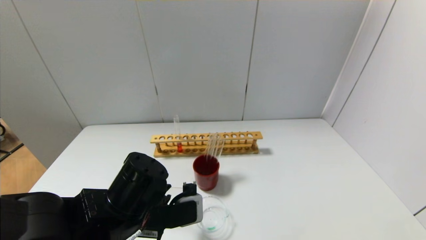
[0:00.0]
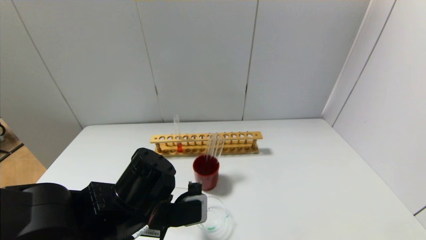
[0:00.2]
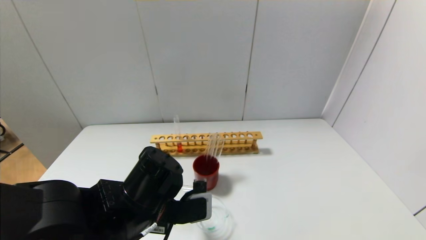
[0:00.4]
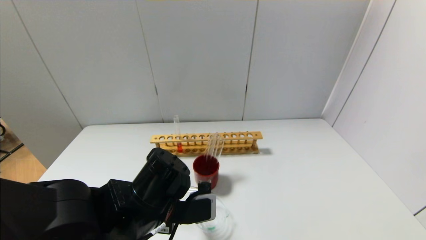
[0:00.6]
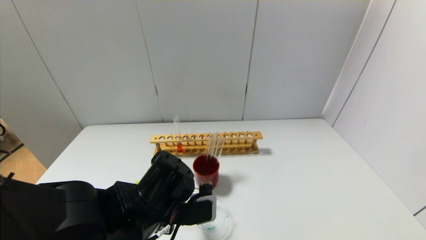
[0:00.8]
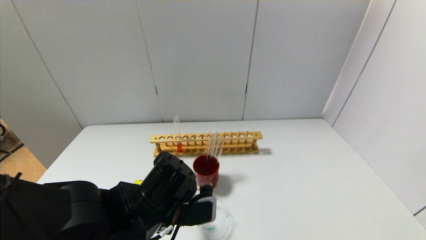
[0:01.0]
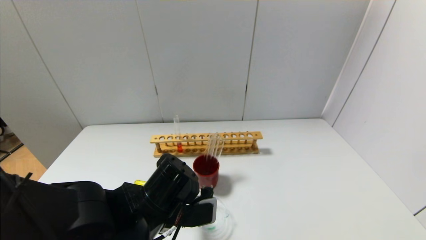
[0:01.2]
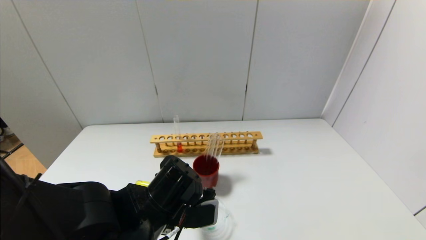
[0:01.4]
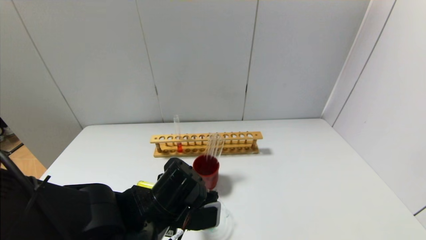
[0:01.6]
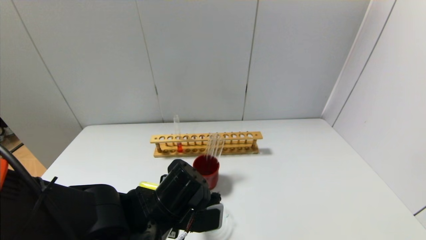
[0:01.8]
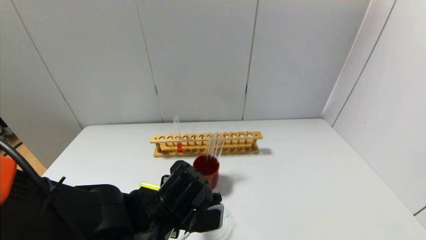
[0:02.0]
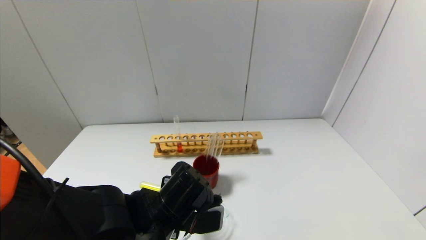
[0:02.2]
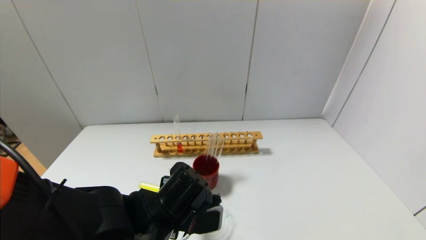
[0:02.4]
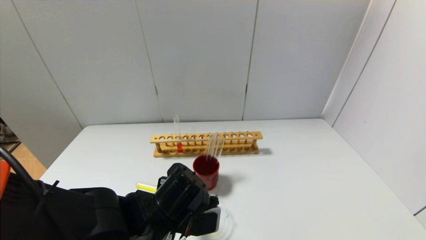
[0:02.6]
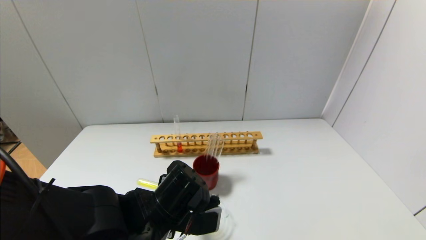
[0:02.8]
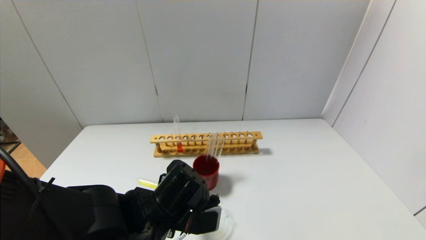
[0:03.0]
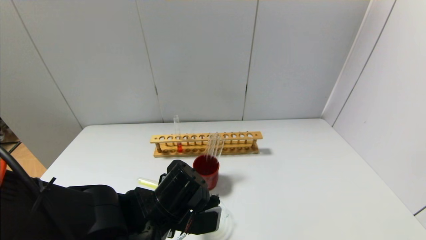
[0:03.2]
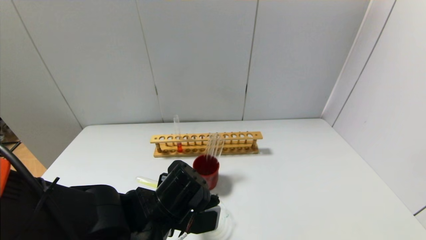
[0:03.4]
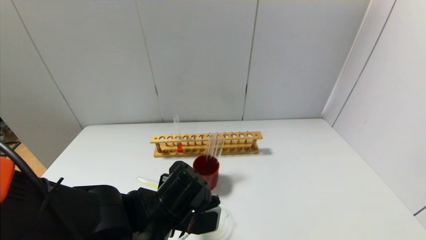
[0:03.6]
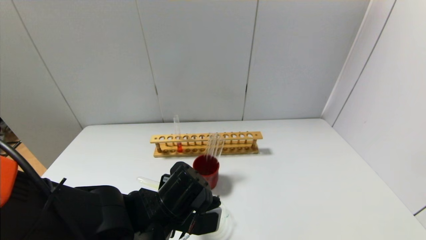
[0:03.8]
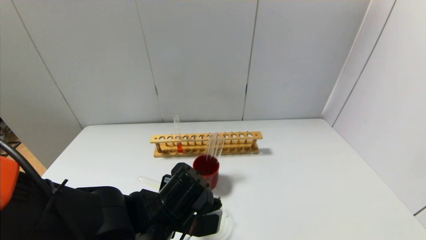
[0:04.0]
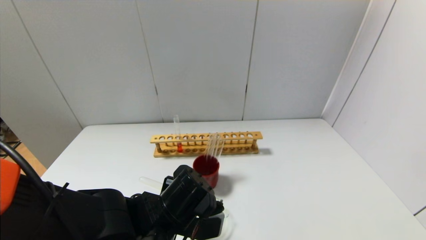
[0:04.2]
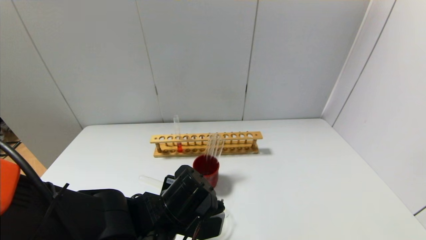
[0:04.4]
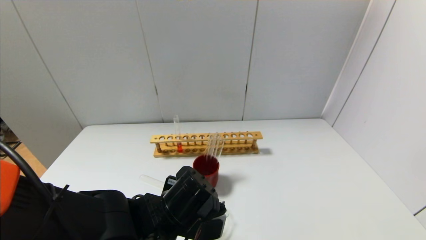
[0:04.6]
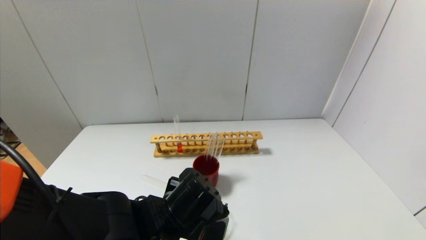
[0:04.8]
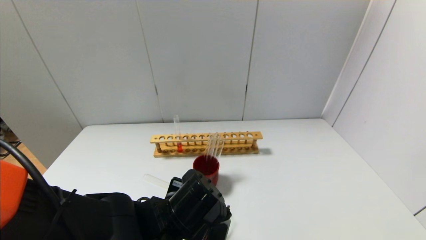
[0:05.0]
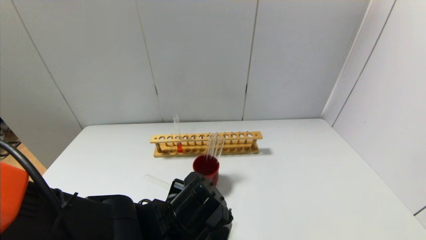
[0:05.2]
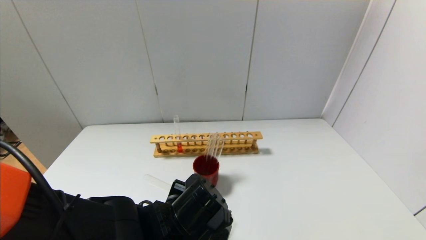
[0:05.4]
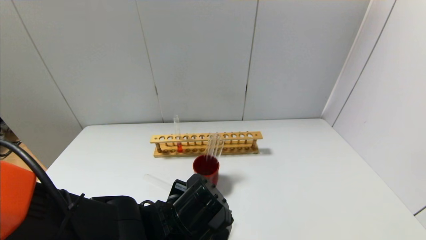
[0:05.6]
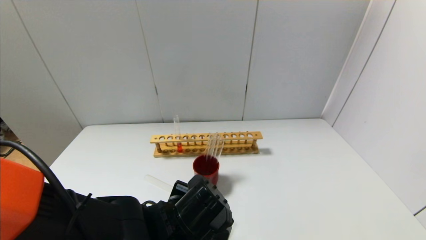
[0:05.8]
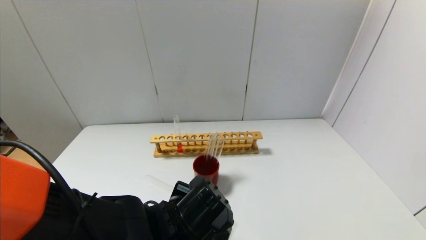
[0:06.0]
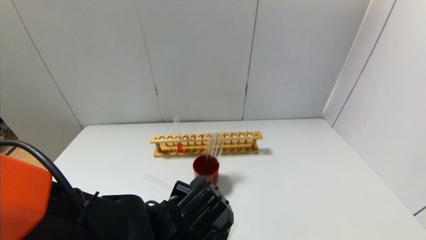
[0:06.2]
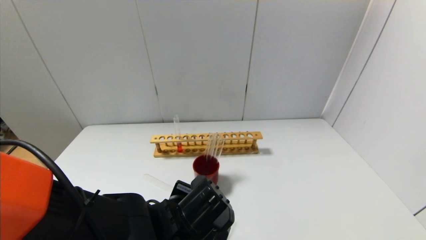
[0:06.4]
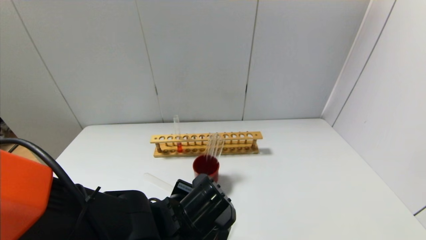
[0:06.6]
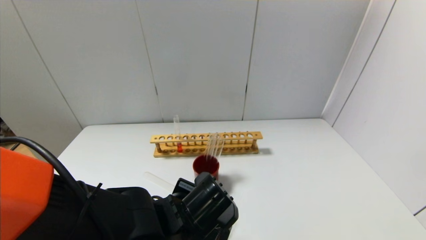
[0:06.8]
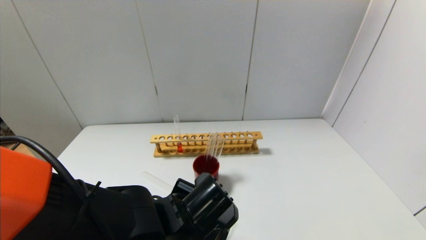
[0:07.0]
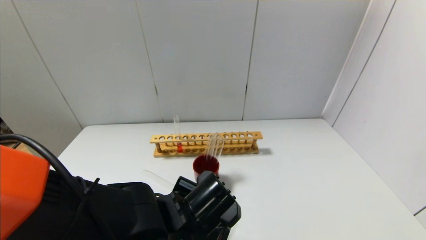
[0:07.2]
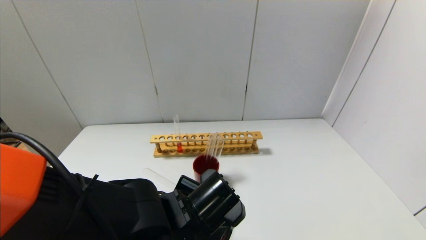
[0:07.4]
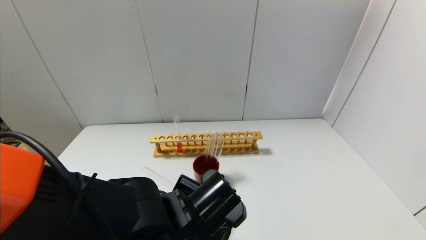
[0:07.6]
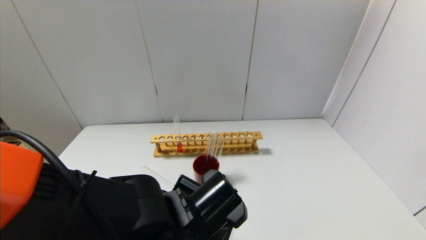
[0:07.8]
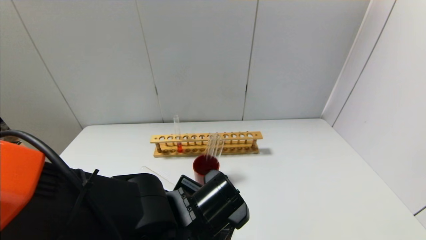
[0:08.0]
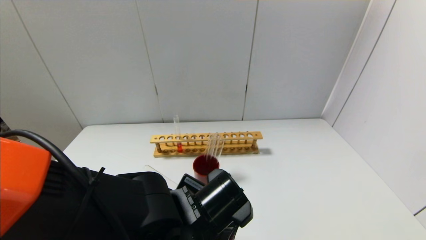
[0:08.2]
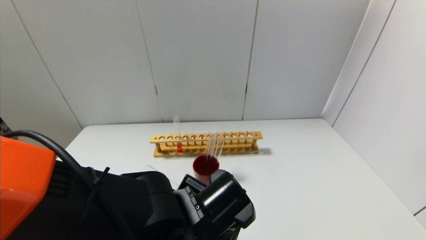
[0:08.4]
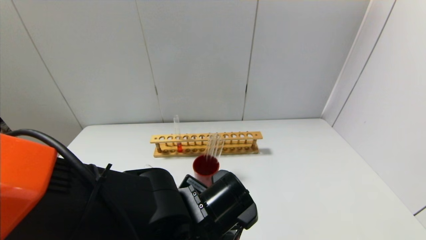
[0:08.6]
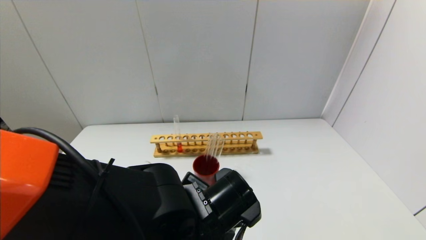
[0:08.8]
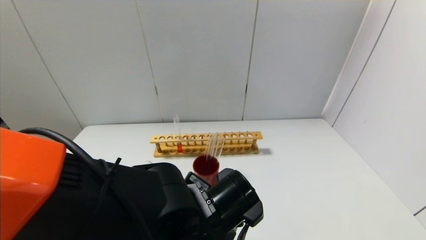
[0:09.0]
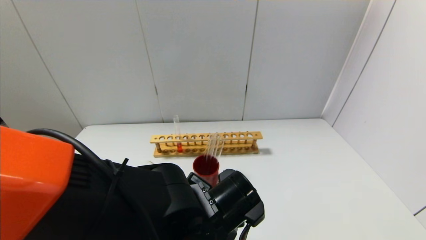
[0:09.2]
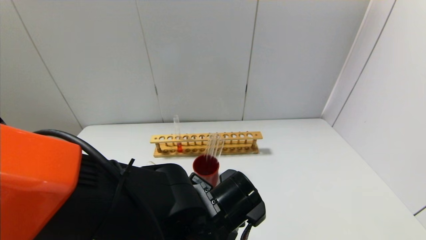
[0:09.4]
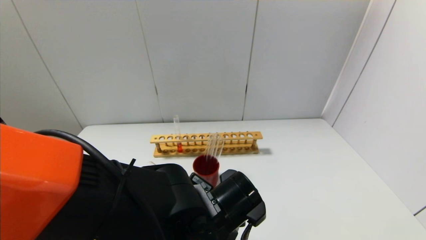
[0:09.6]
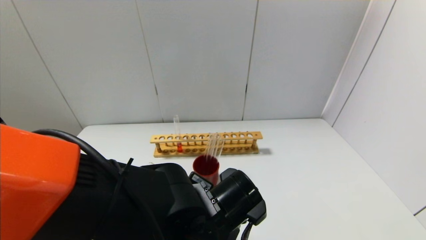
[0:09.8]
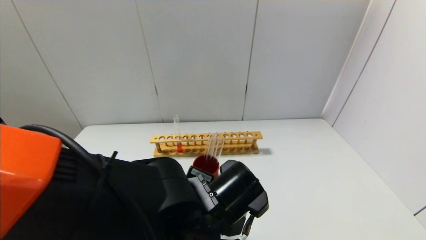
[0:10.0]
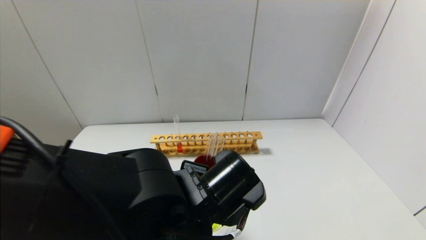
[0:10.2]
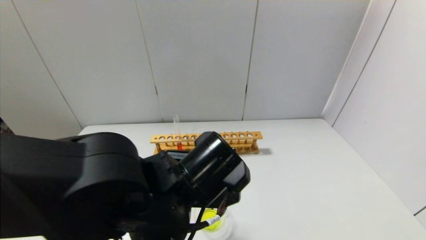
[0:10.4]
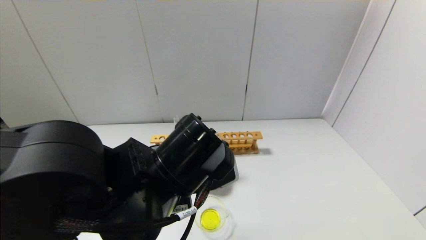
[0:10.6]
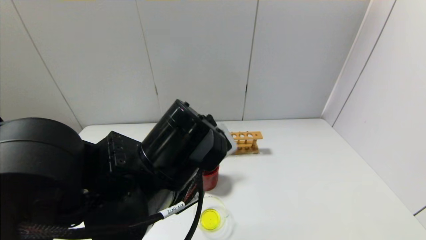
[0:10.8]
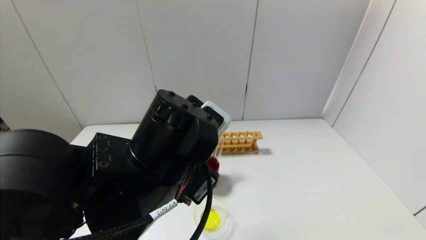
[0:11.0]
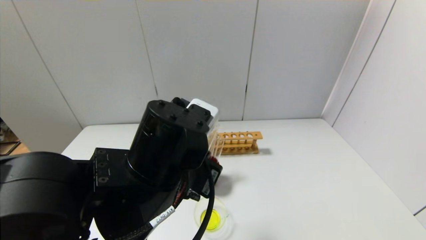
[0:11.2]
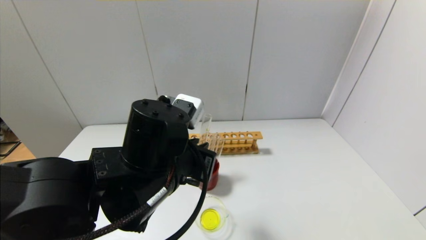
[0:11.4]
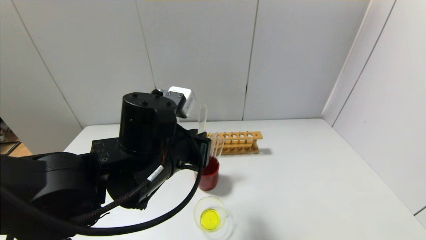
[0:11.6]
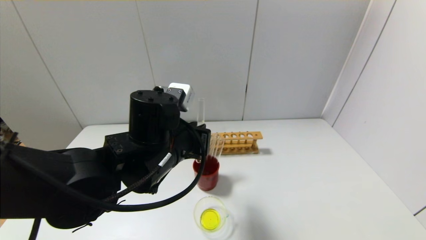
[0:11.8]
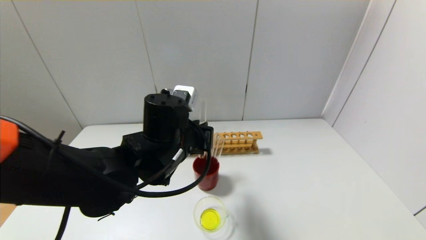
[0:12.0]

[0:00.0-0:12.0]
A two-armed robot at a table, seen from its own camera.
Step, 0.0 to 9.8 s: Pour the yellow reagent into the graduated cylinder with the left gripper.
0.0 to 1.6 s: There are only small adjustments of the grippers.
1.6 to 3.0 s: Both grippers stay about where they are.
3.0 to 7.6 s: The grippers move only a little.
7.6 to 9.0 s: The grippers make only small movements.
9.0 to 10.4 s: The left gripper moves upward, some 5 cm.
10.4 to 12.0 s: The left gripper shifts about 10 cm forward.

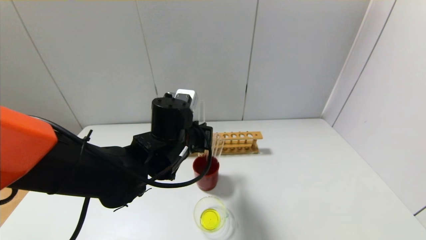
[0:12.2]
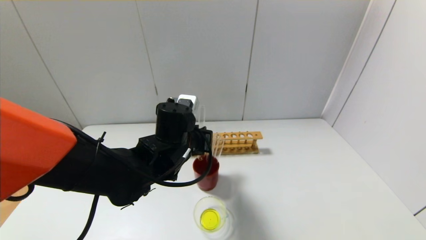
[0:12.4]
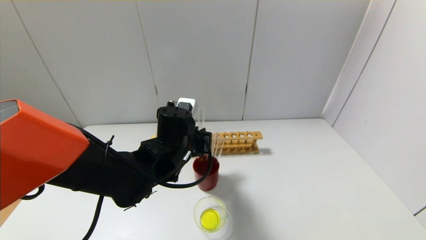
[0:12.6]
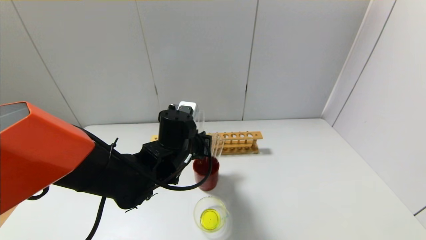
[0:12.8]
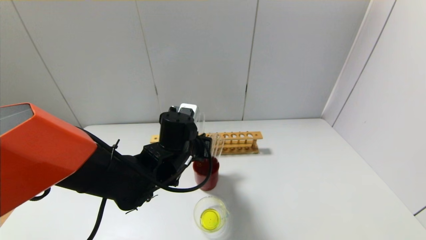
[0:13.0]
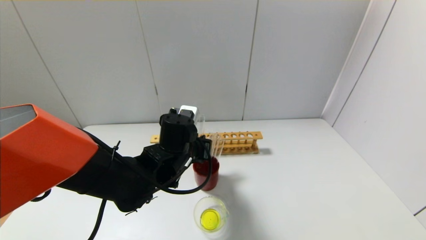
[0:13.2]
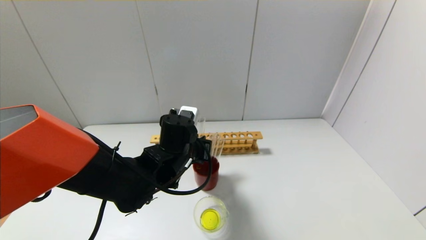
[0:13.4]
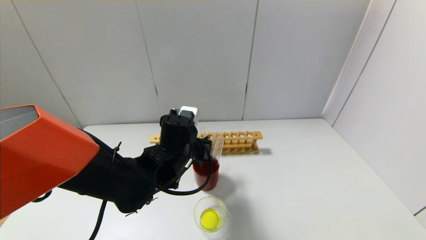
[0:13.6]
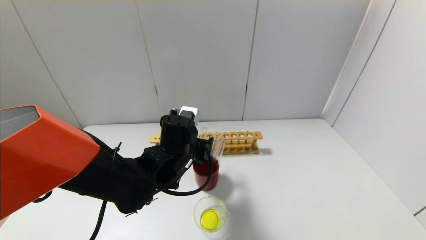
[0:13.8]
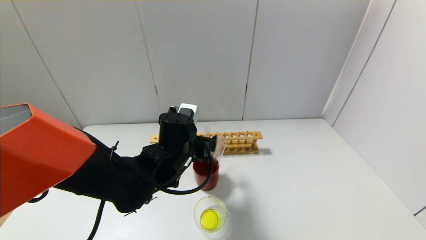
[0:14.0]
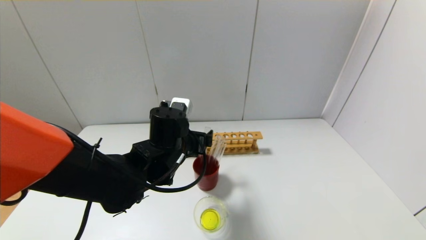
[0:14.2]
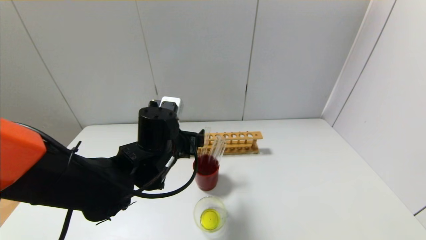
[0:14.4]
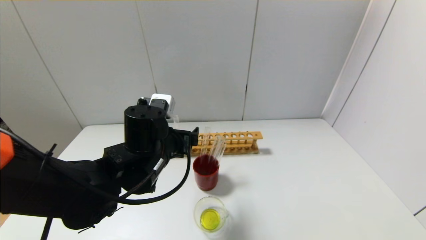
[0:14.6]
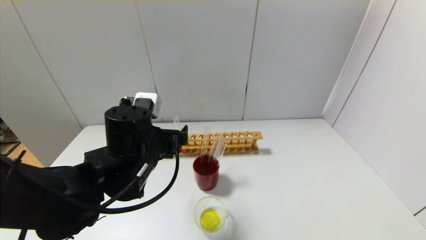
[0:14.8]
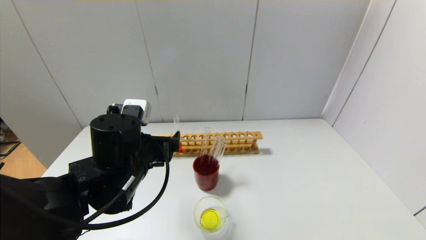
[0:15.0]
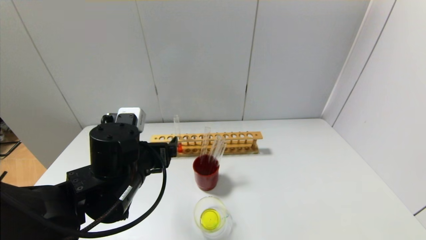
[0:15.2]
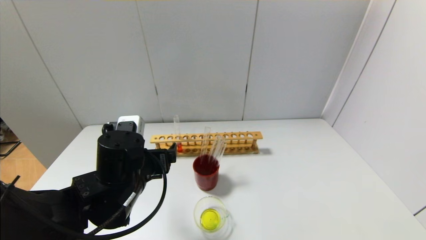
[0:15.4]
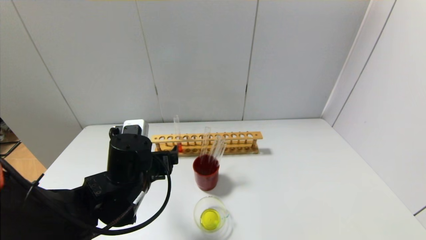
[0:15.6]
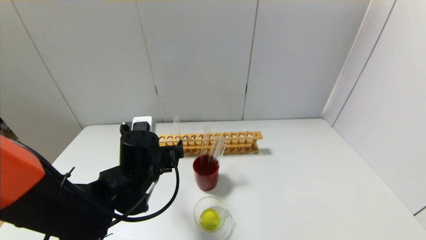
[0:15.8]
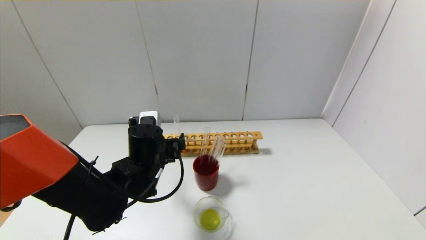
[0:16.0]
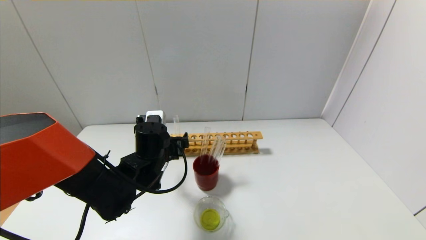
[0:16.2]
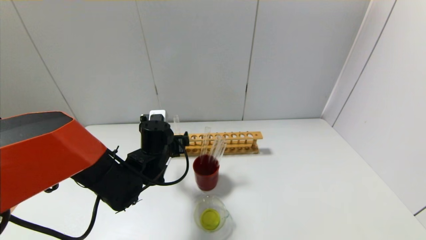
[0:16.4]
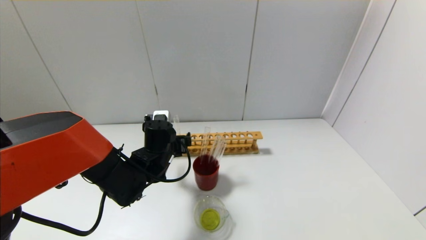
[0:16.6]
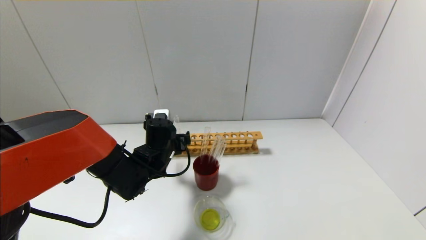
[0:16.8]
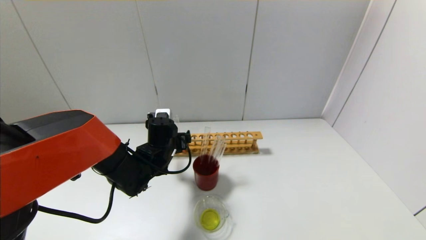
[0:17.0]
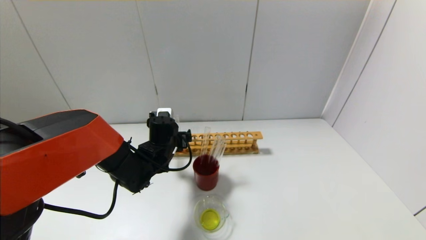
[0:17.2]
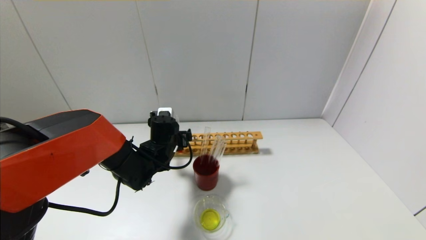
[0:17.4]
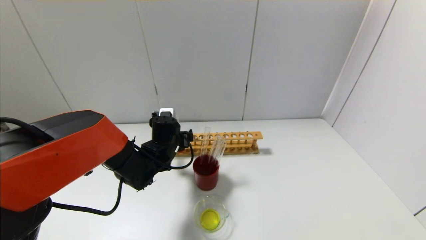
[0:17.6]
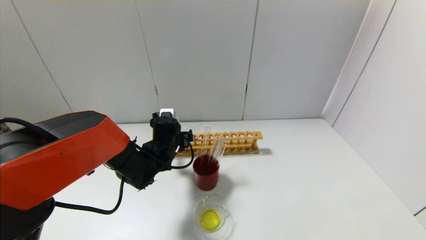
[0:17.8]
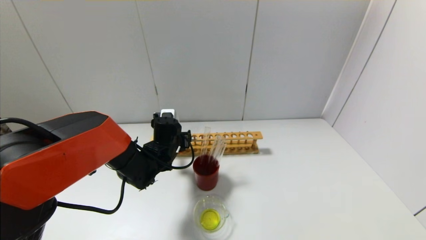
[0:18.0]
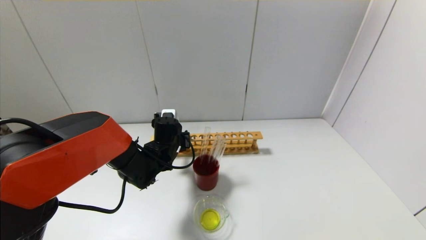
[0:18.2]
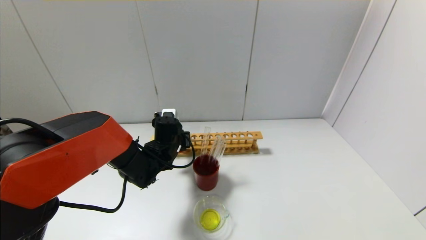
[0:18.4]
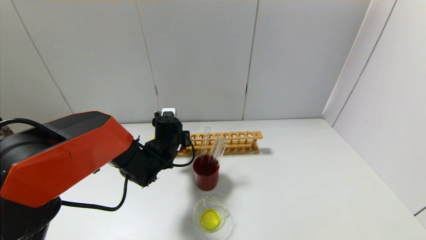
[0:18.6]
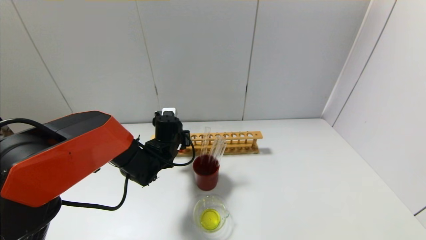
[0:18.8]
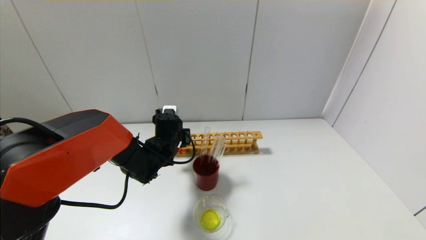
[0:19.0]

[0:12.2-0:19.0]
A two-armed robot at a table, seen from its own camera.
Step, 14.0 to 18.8 s: Grasp the red reagent with the left gripper.
12.2 to 13.6 s: There are only small adjustments of the grippers.
13.6 to 15.0 s: The left gripper goes approximately 10 cm to the left and backward, and opens its fingers.
15.0 to 16.2 s: The left gripper is displaced forward and downward by roughly 10 cm.
16.2 to 17.6 s: The left gripper moves forward, roughly 5 cm.
17.6 to 19.0 s: The left gripper closes its fingers.
